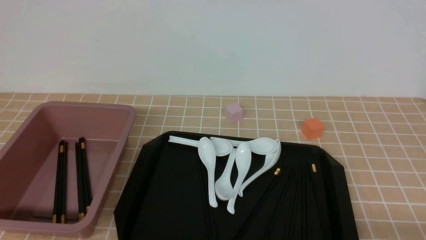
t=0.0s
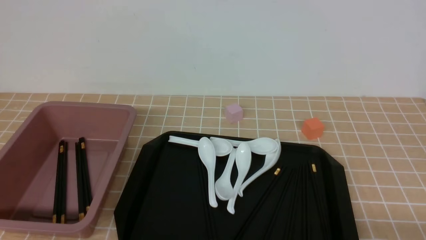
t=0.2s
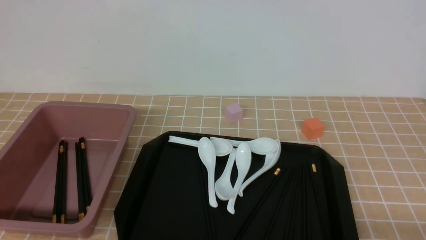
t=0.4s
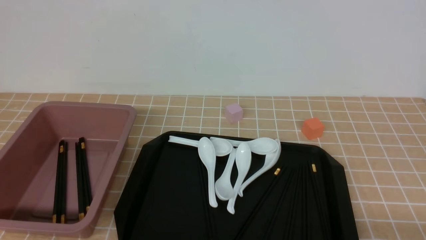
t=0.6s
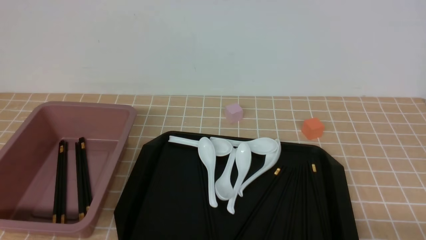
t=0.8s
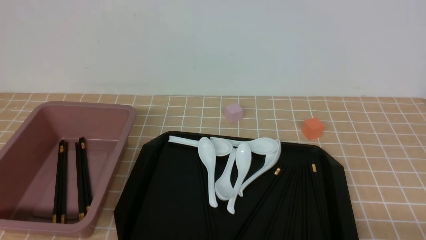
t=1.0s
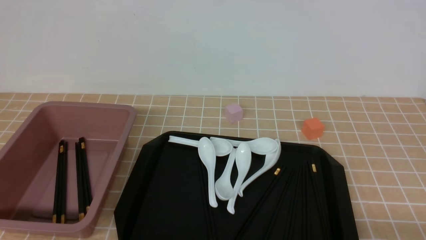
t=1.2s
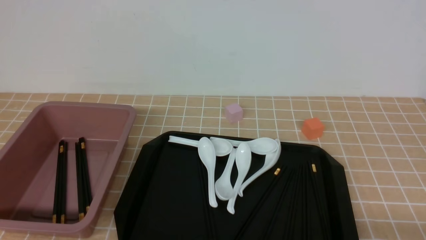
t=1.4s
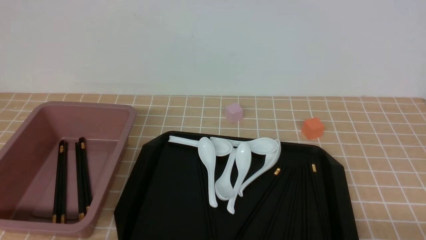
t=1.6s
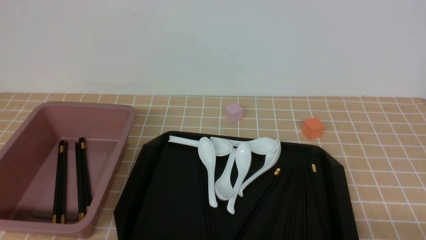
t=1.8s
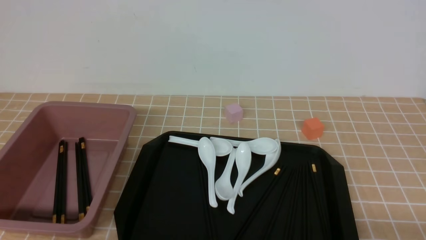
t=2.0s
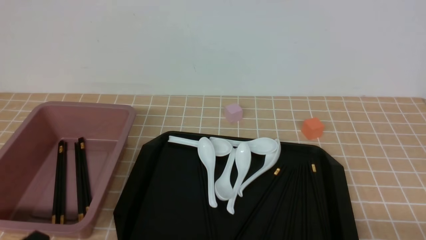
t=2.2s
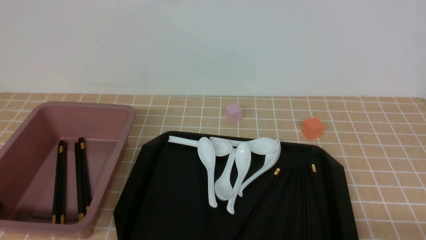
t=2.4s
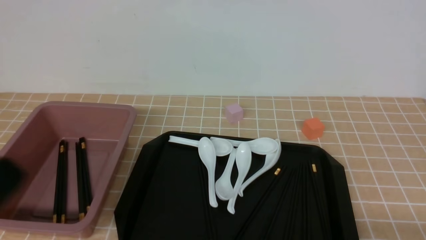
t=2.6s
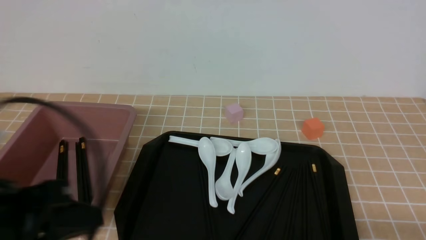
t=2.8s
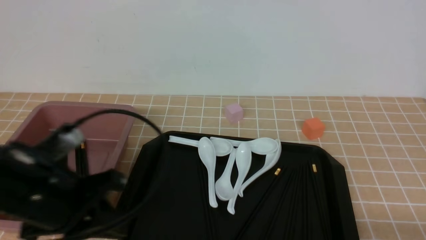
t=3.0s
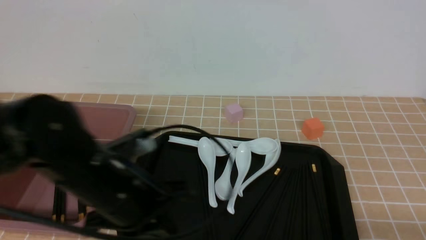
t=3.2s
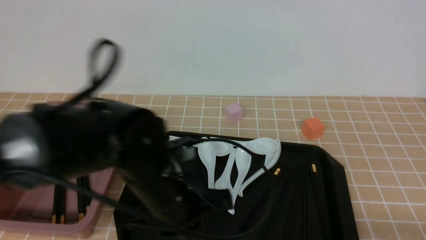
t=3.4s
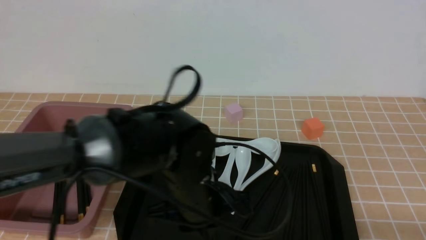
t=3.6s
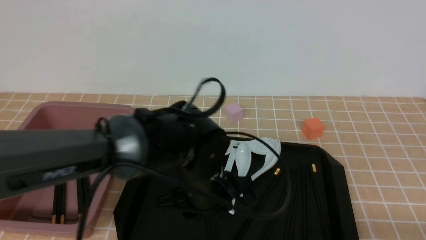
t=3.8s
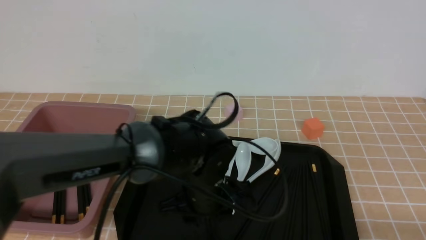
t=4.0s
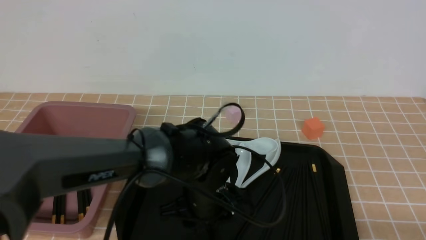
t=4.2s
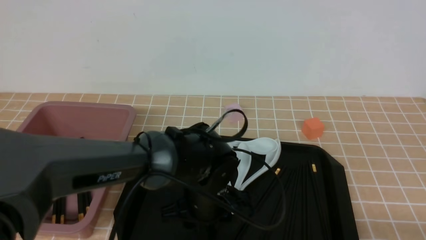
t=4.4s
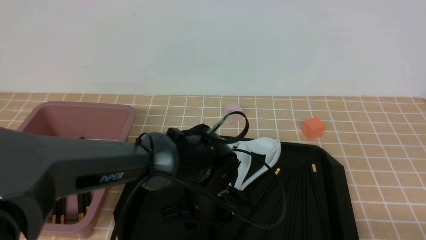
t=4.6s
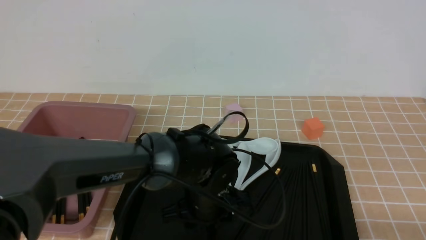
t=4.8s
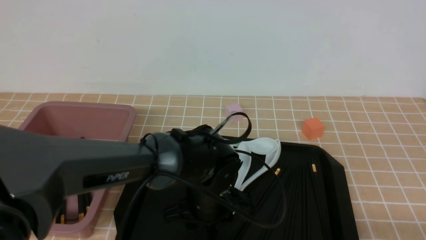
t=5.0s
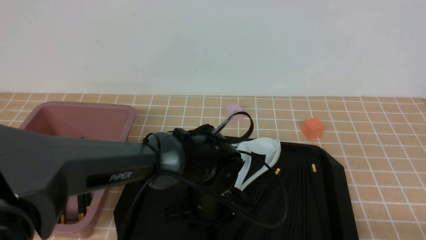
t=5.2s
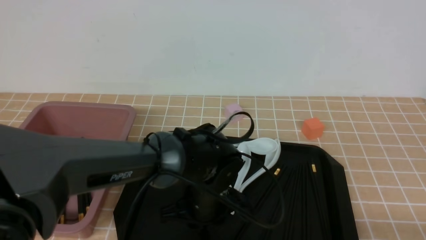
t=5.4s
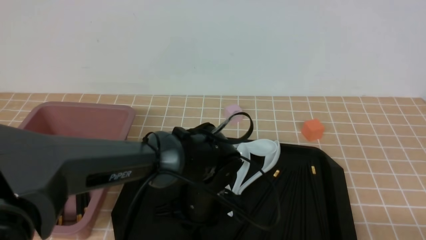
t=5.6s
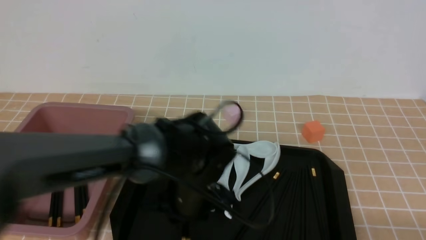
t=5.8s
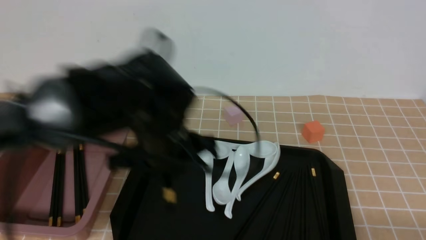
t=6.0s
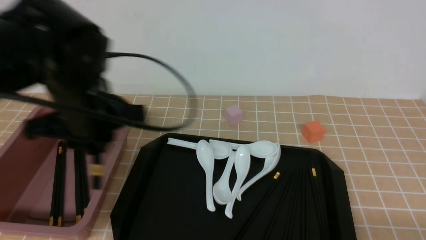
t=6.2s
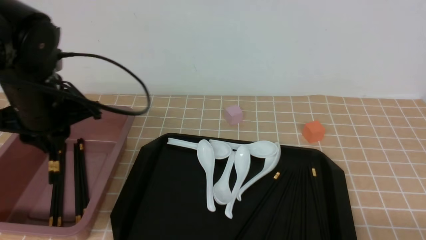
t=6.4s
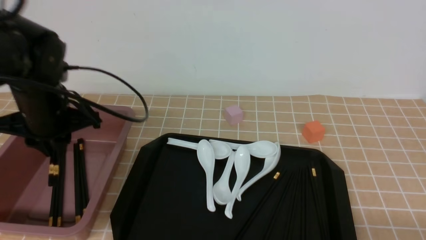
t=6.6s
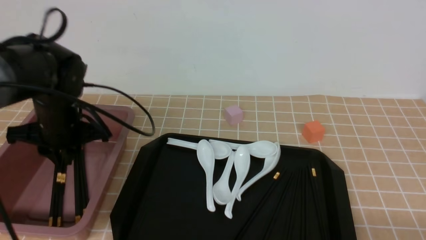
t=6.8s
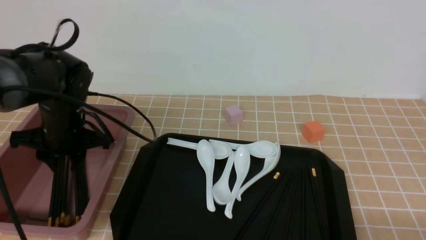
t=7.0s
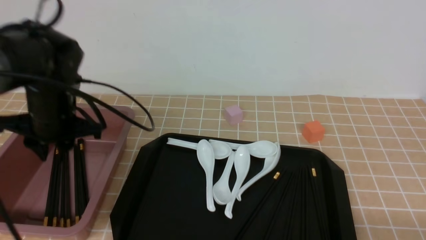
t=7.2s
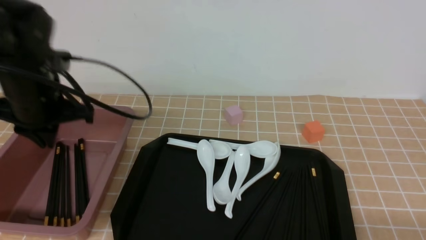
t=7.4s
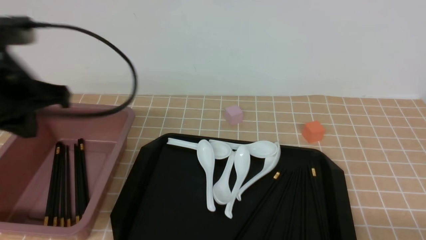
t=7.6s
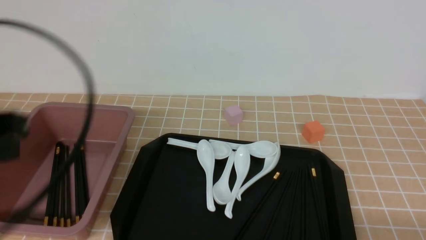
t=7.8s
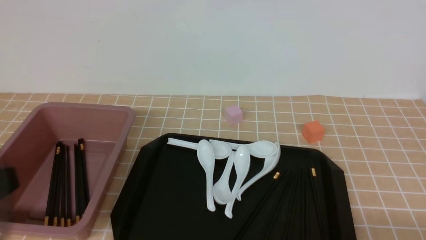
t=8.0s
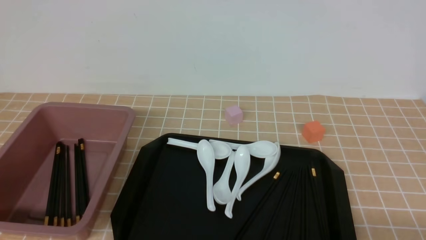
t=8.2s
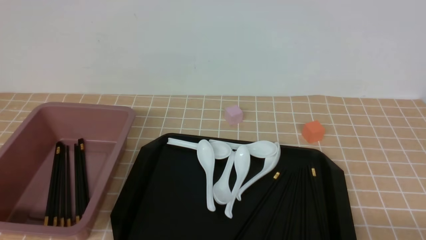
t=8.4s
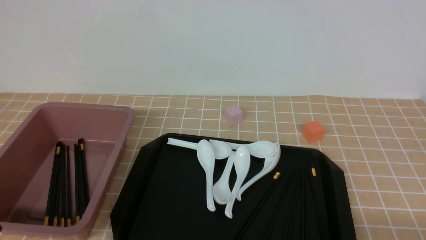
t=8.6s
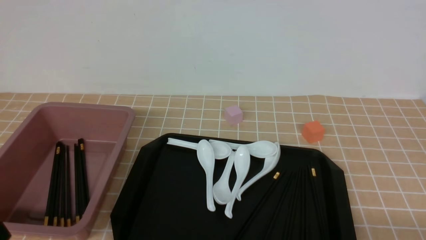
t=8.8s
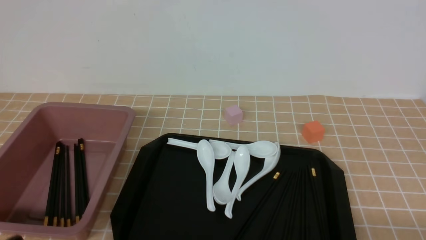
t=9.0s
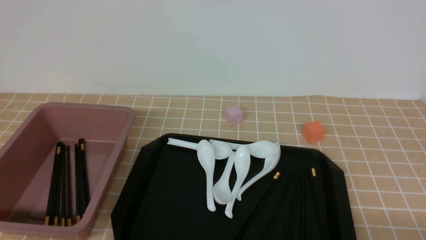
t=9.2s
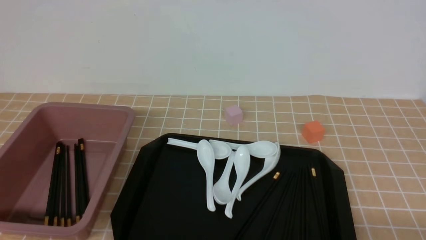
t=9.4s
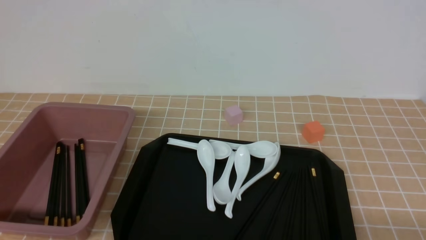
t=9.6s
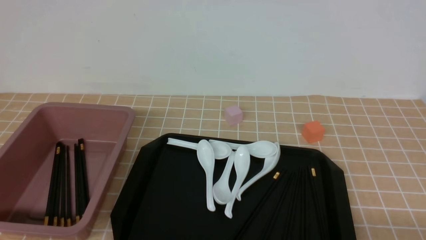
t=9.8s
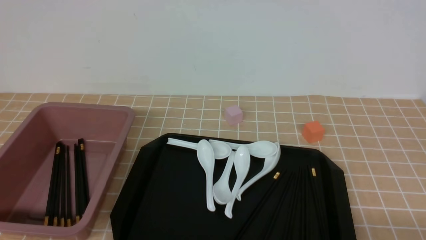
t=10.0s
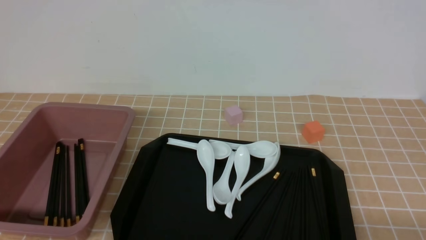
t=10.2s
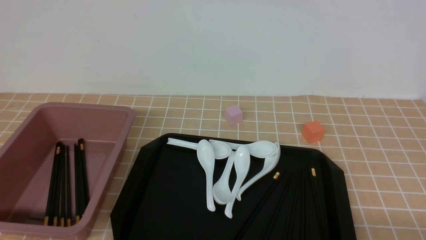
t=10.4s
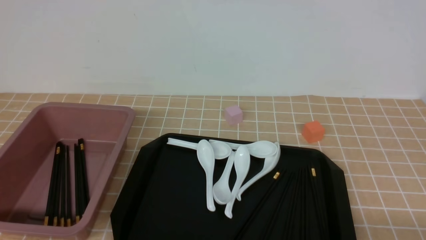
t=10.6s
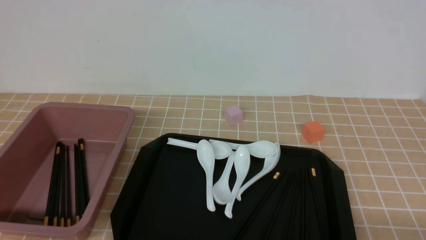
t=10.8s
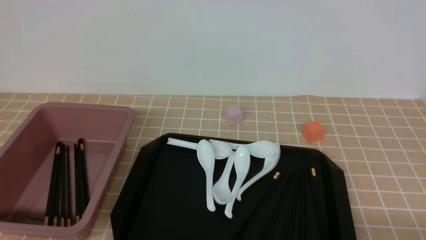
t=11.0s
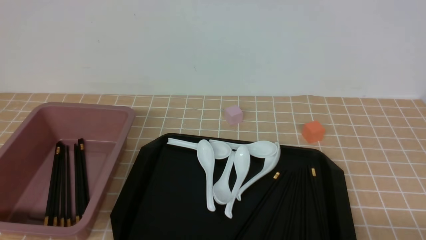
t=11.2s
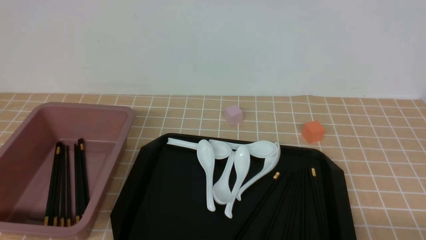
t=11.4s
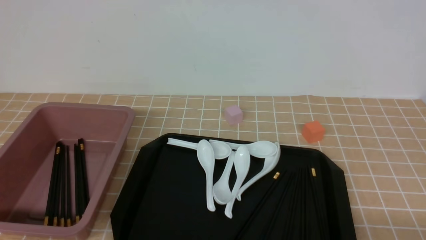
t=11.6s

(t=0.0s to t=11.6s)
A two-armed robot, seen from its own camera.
Step, t=0.0s - t=5.6s: use the left arm to grab a pair of chopsticks.
Step, t=5.8s - t=7.4s: use the left arm to put the chopsticks into the lunch box.
t=1.4s - t=2.8s: The left gripper moves upward and forward, some 15 cm, and closes up.
t=2.8s - t=4.4s: The left gripper goes roughly 30 cm to the right, forward and downward, and opens up.
t=4.4s - t=5.8s: The left gripper shifts roughly 5 cm upward, and closes.
t=5.8s - t=7.2s: The left gripper goes some 20 cm to the left.
t=7.2s - t=8.8s: The left gripper heads backward, covering some 30 cm, and closes.
t=10.2s - t=11.6s: Both grippers stay put.
